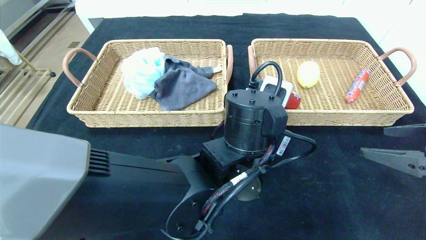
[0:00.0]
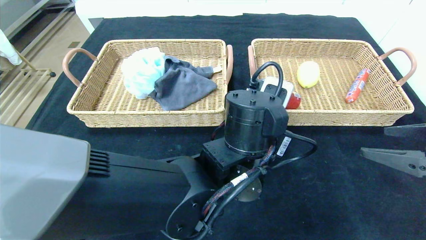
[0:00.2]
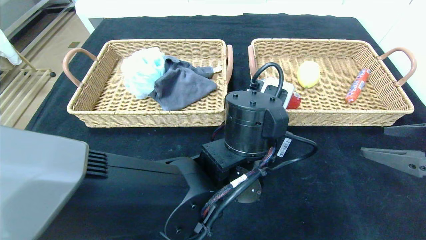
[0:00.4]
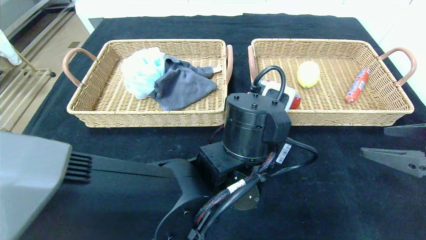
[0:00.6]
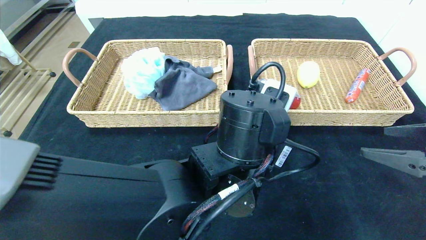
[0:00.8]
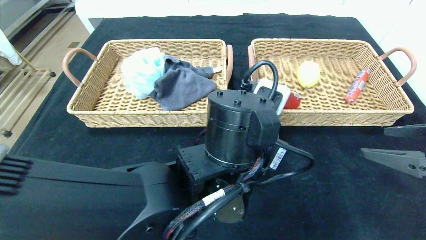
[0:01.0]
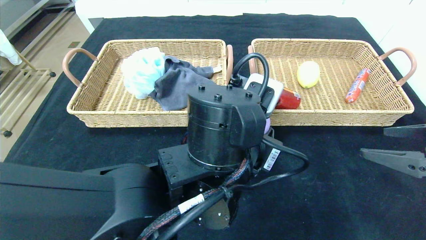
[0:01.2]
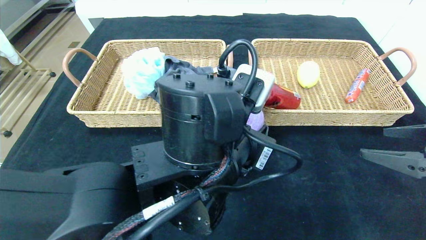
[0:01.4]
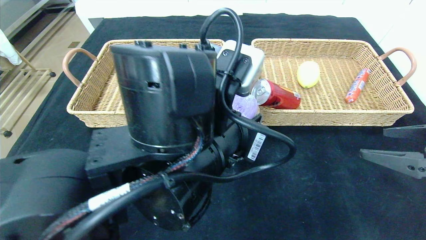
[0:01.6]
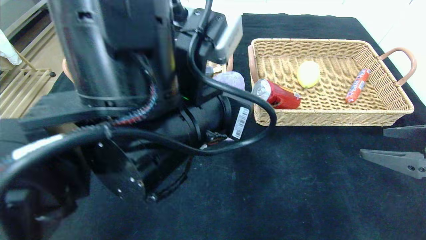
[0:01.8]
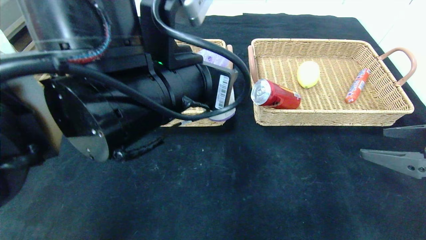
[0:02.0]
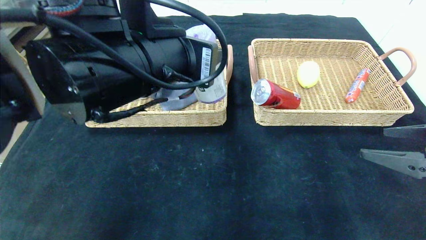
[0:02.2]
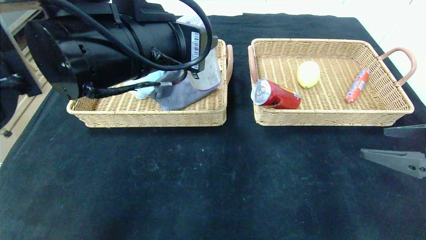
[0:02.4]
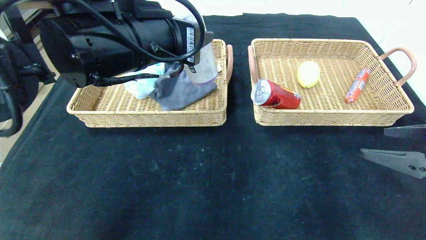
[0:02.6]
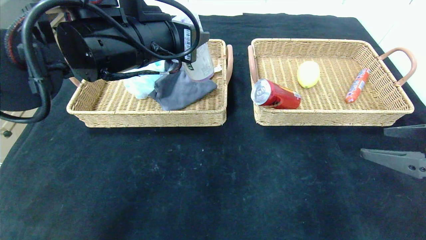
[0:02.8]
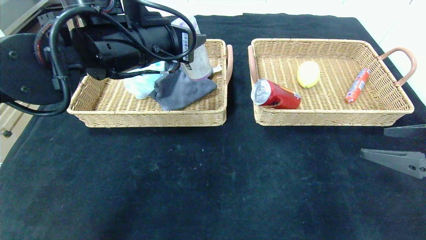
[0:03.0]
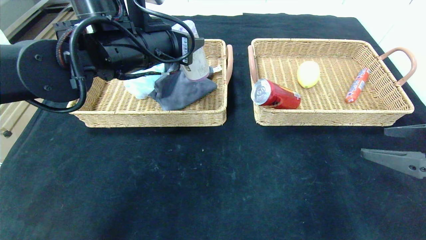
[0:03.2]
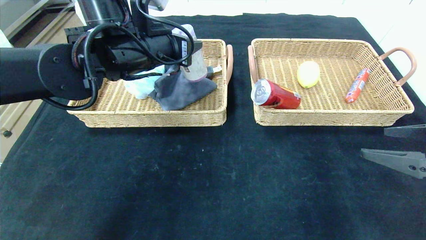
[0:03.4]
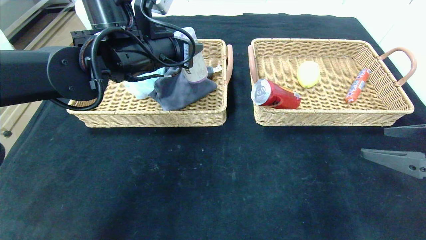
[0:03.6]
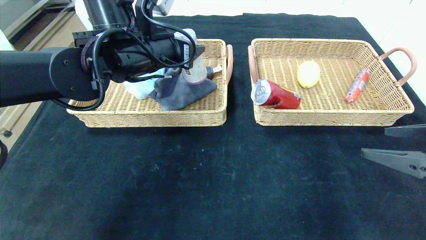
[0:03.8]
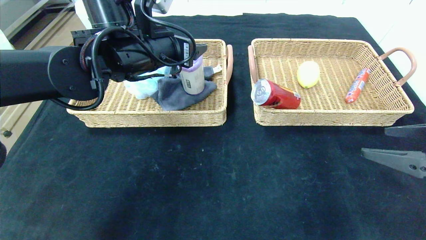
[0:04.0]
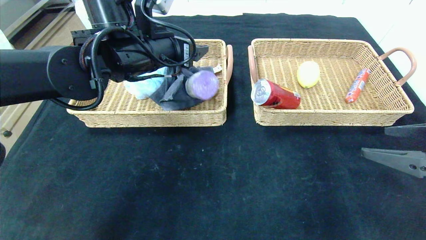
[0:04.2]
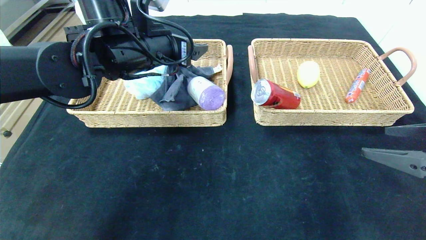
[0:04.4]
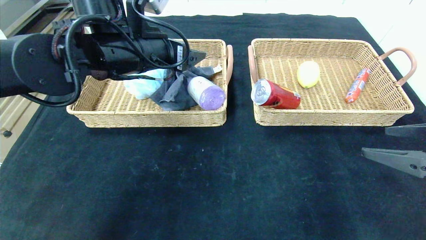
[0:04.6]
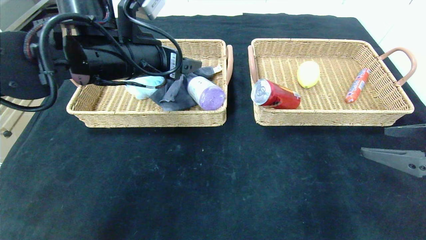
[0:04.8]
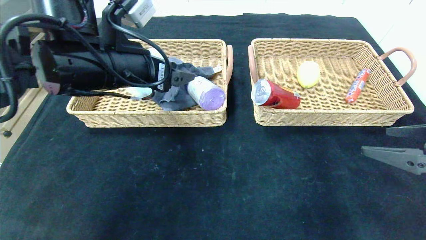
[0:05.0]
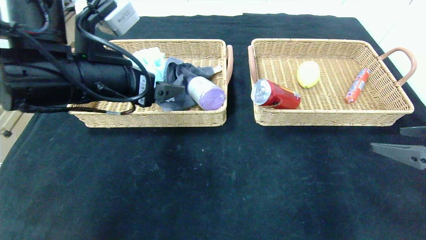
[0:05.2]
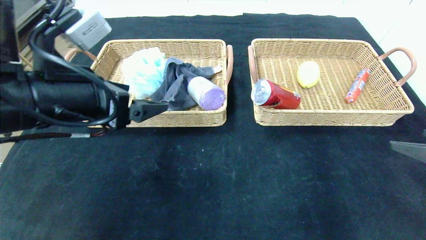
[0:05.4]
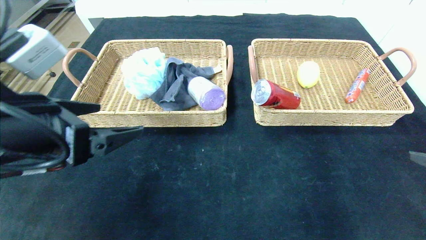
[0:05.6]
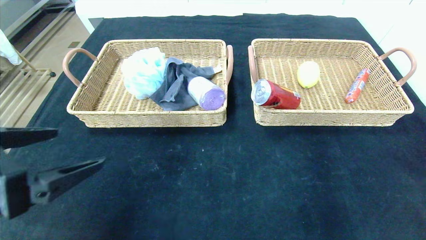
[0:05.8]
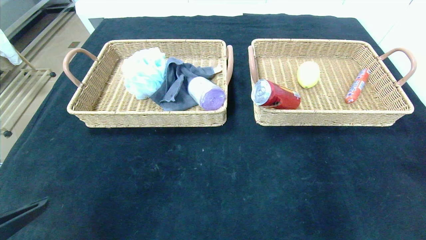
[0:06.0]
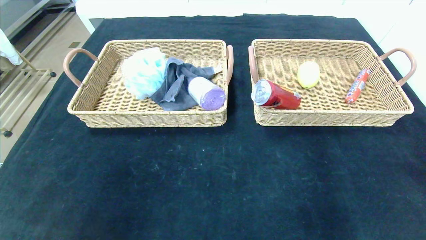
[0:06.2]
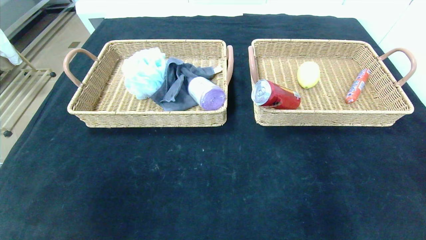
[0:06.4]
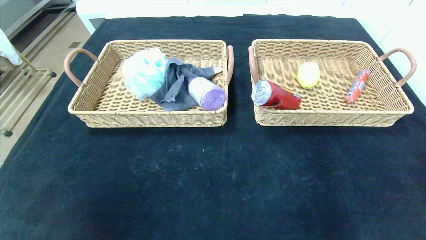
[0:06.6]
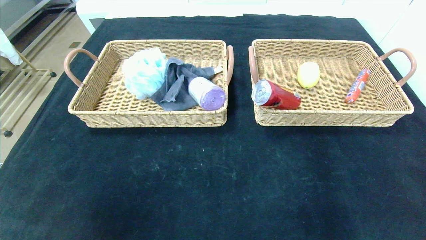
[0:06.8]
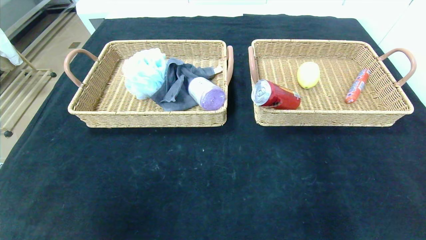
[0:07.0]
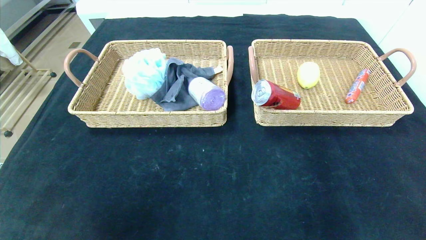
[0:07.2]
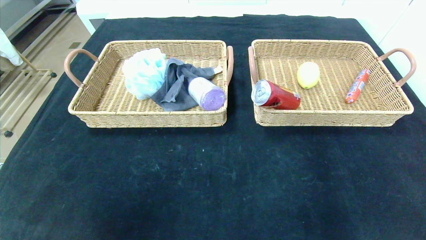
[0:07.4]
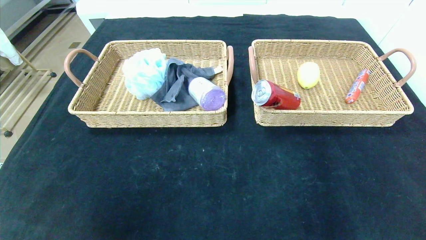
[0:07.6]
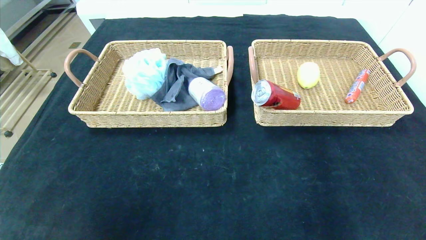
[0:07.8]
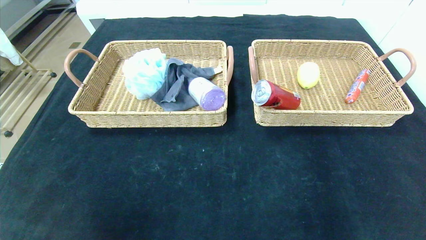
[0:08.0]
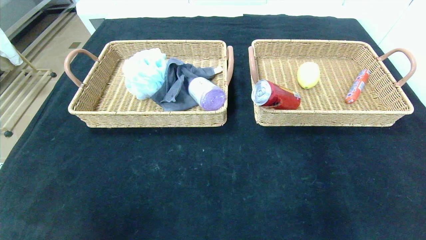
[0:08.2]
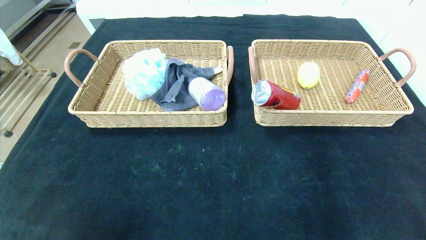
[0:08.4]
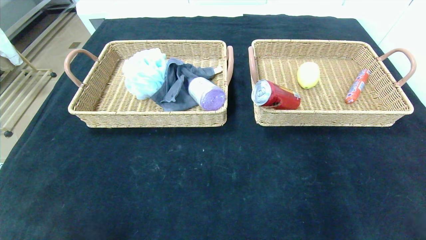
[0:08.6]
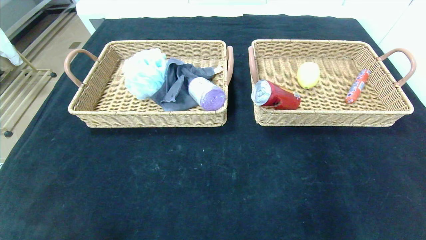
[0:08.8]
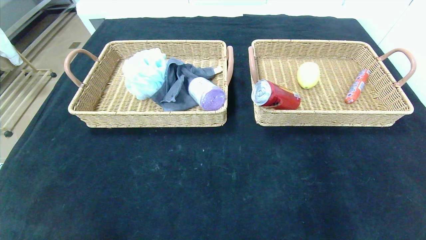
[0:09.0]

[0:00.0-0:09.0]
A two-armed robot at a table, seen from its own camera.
Step, 0:00.0 to 0:04.4: Grasp the purple garbage bag and put it in the left basket.
0:00.0 to 0:01.6: The left gripper heads to the left and backward, covering some 10 cm.
0:01.6 to 0:03.0: The left gripper travels forward, to the left and upward by about 20 cm.
0:03.0 to 0:04.4: The left gripper opens up.
0:04.4 to 0:06.0: The right gripper goes about 10 cm backward, while the left gripper shifts roughly 30 cm backward and to the left.
0:06.0 to 0:07.6: The right gripper travels backward and downward by roughly 15 cm, while the left gripper shifts approximately 15 cm backward.
